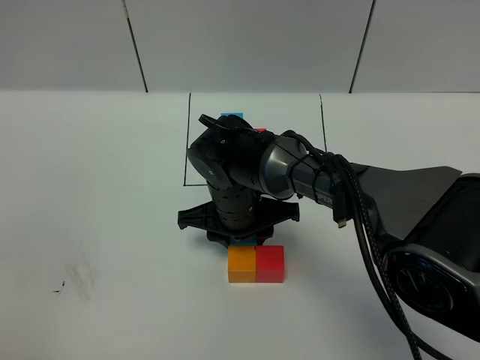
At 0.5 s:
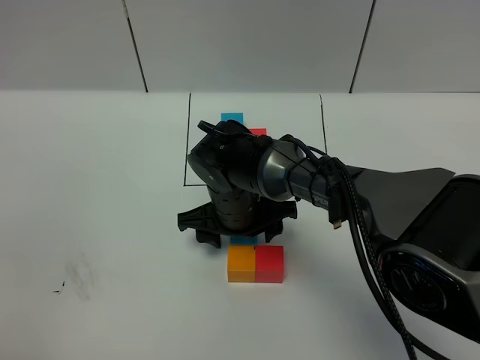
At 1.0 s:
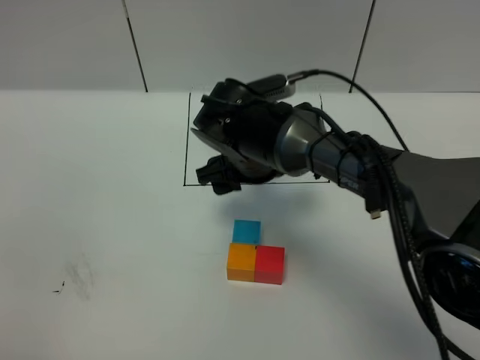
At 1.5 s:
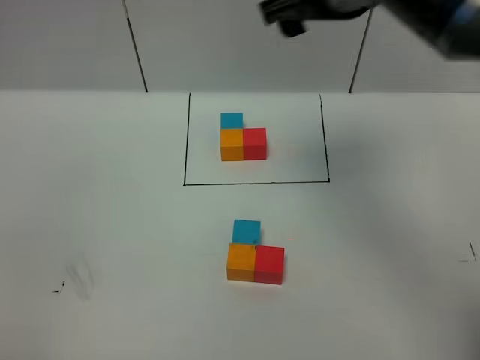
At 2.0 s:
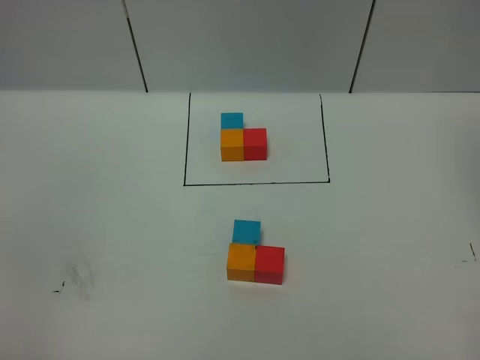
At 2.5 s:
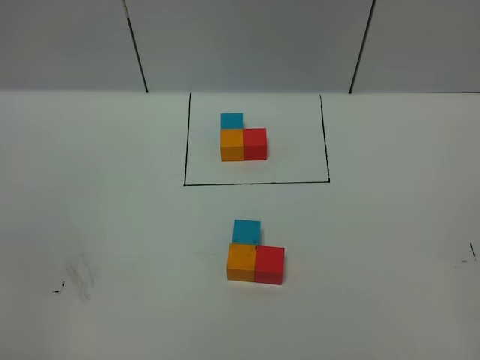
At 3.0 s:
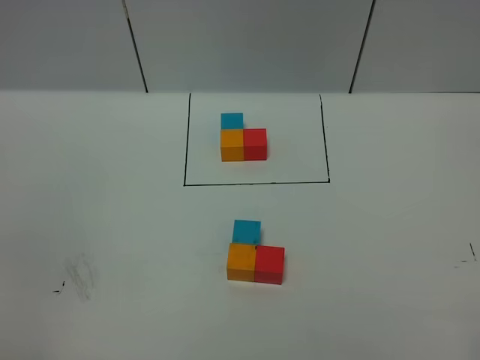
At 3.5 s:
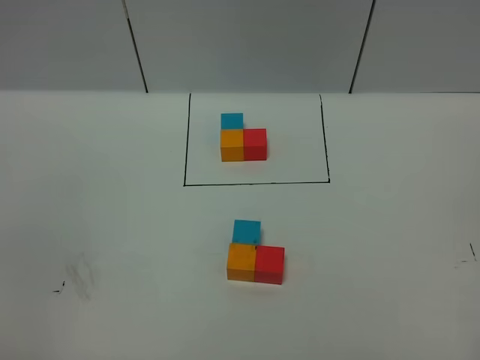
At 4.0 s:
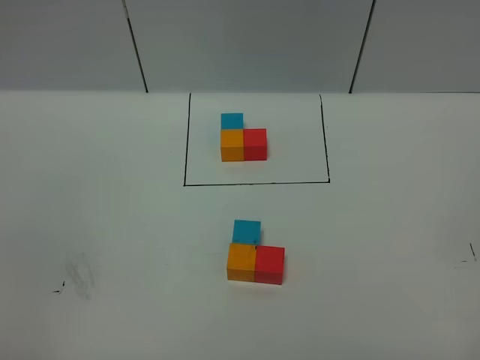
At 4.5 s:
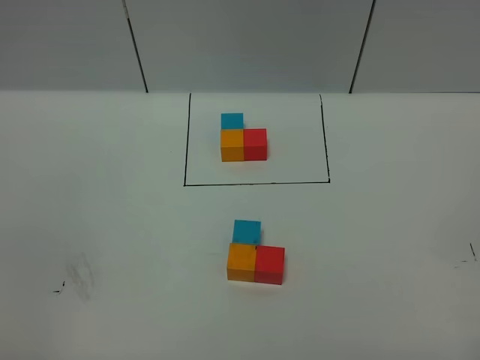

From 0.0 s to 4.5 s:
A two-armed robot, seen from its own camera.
Task of the whole recording: According to the building block template in front, assemble the scattered blocks together.
From 0.0 s to 2.0 s: The right gripper is displaced upward and to the right by some 50 cm, and opens.
